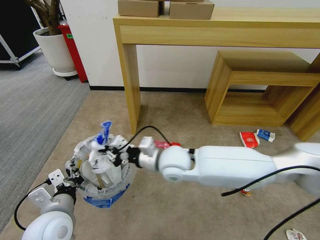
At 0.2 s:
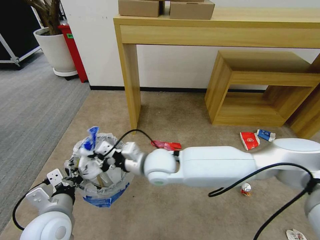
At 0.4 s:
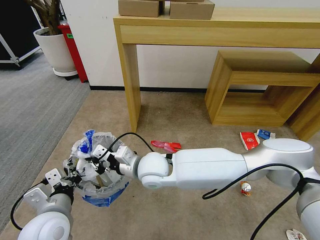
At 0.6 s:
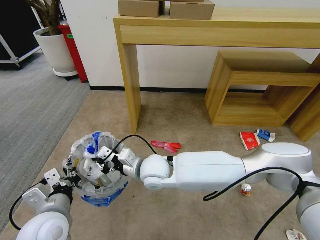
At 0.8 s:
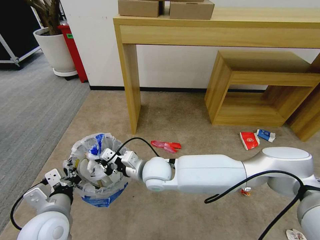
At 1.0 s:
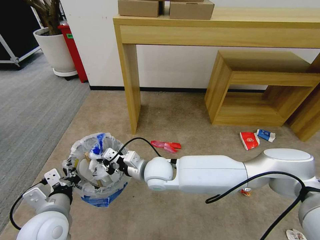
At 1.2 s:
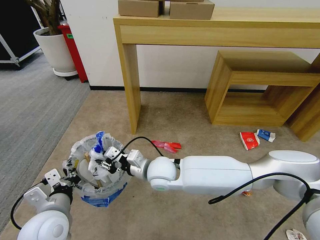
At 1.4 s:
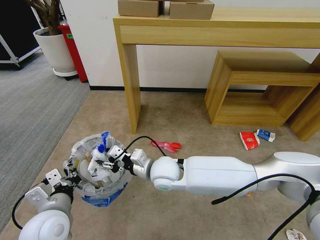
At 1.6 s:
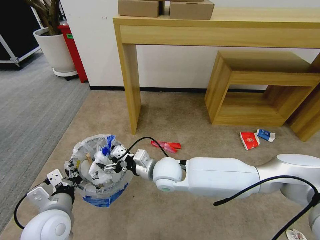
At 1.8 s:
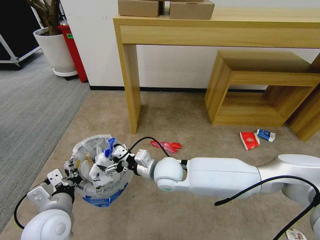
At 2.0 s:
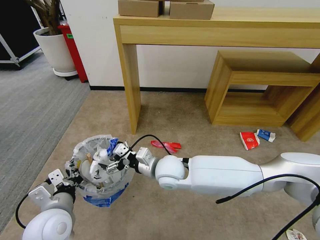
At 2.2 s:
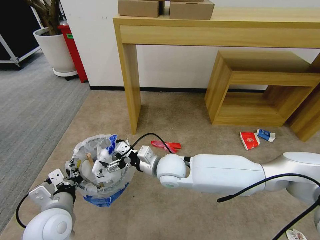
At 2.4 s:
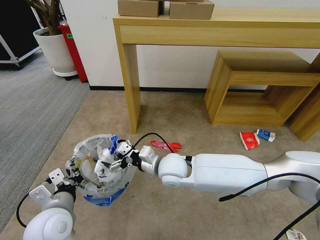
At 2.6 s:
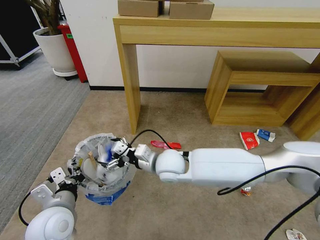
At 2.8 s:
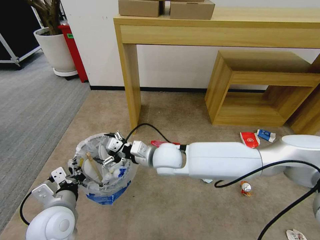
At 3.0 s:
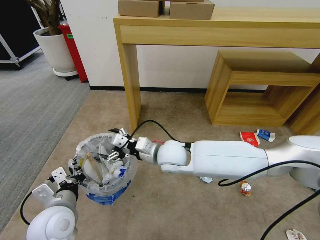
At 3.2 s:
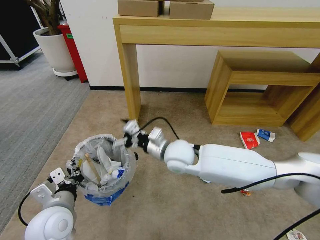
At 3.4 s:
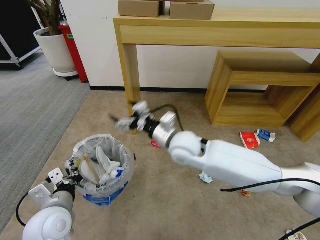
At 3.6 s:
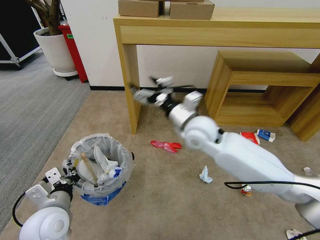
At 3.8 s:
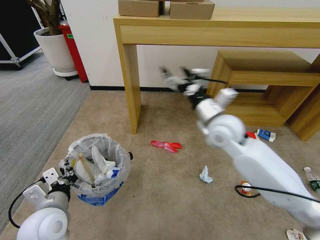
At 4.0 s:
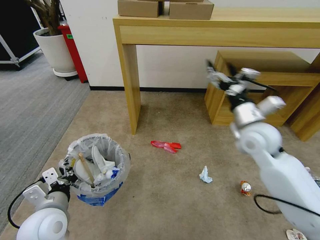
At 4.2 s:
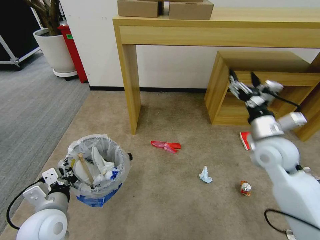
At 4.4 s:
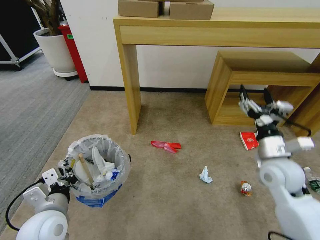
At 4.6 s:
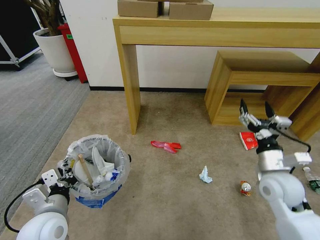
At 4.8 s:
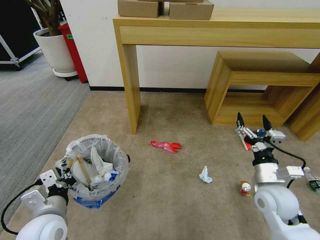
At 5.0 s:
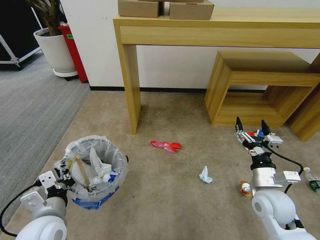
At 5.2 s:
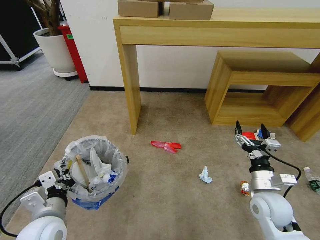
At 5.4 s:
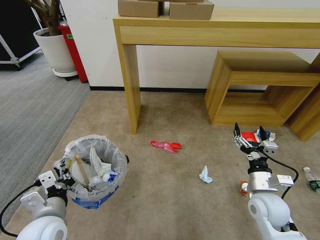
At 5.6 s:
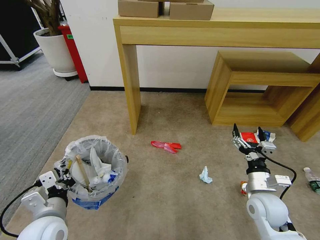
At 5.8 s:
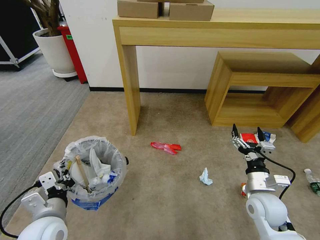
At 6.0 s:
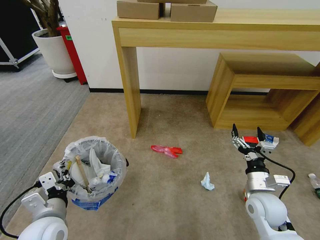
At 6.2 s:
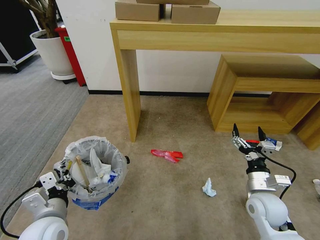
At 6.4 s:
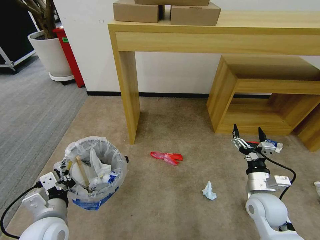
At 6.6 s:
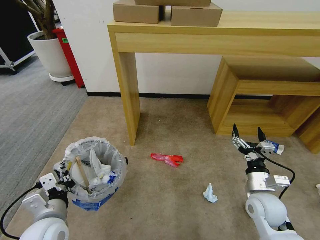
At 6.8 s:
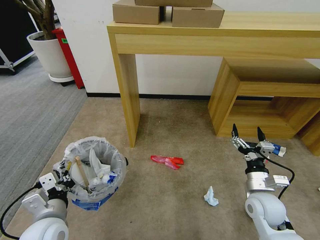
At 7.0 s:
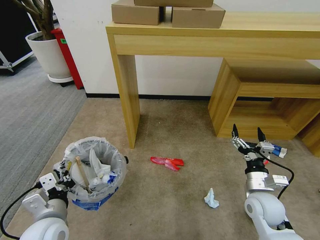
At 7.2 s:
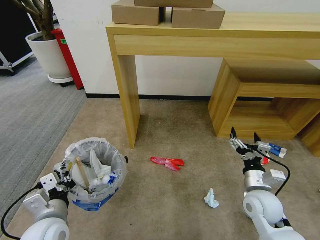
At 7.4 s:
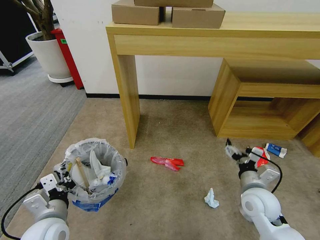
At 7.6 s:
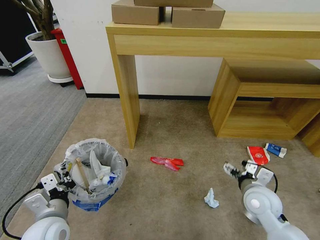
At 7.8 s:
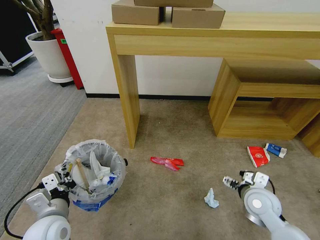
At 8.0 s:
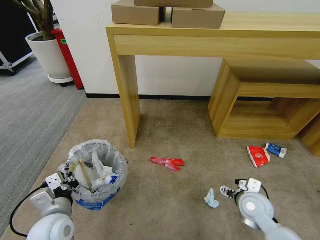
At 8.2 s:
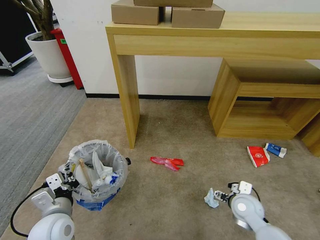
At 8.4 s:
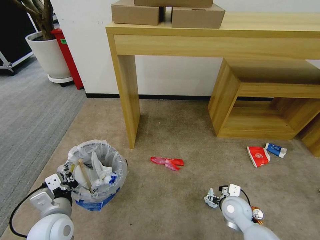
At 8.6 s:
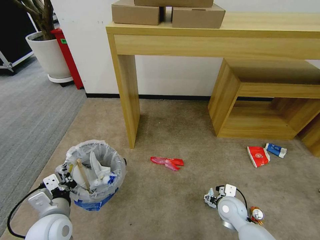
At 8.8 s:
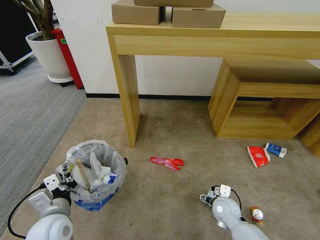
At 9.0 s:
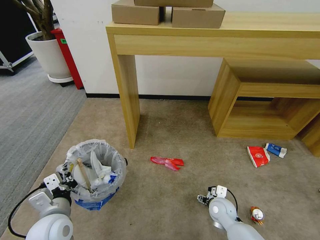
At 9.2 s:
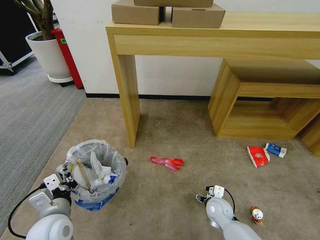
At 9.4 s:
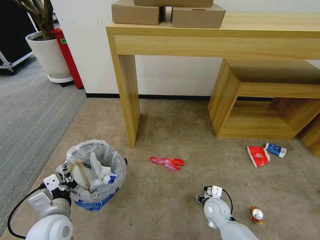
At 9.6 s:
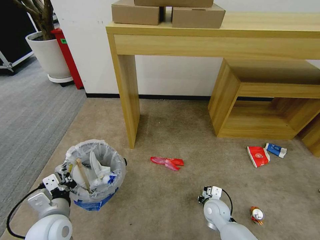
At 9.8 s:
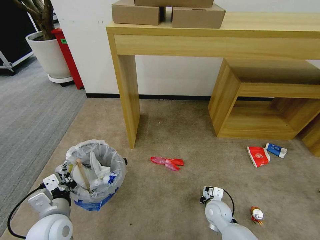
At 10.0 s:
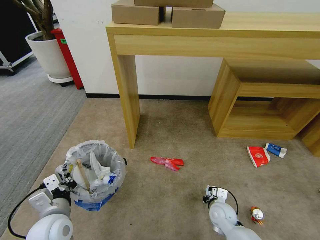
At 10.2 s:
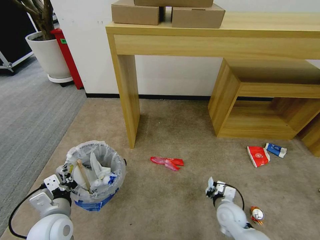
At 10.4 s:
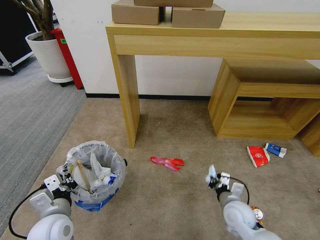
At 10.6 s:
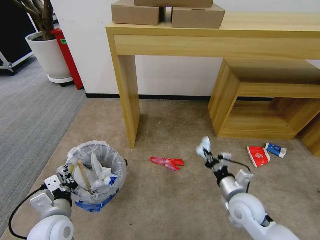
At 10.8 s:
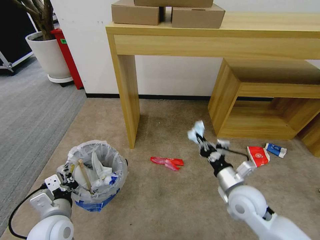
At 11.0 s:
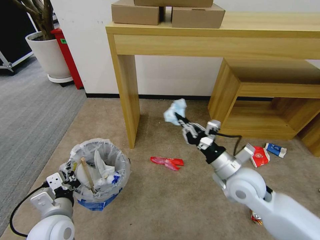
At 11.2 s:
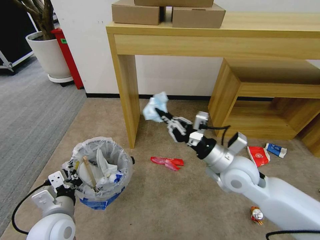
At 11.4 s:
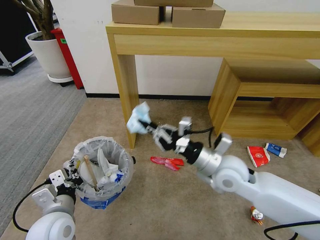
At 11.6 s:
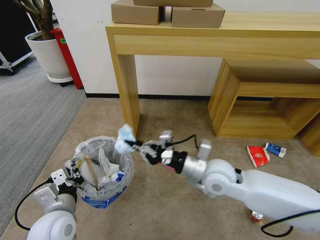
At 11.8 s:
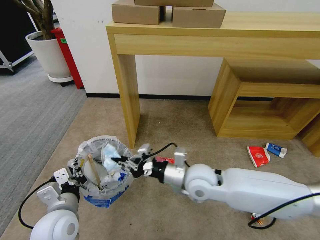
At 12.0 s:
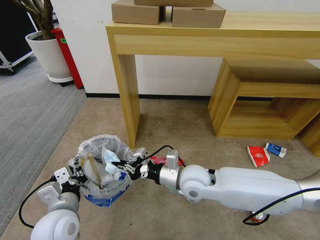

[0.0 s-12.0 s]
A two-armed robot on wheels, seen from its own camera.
Task of the whole recording: Pick up the trash bin and place the garbage on the floor into it.
0.0 to 1.6 s: The right gripper shifts some 5 cm downward, and opens up.
1.6 to 3.0 s: The right gripper shifts by approximately 5 cm.
3.0 to 4.4 s: The right gripper heads to the right, covering about 30 cm.
4.4 to 6.0 s: The right gripper goes roughly 15 cm downward and backward.
7.6 to 9.0 s: The right gripper is displaced downward and to the left by about 15 cm.
9.0 to 10.4 s: The right gripper changes place by roughly 5 cm, and closes its fingers.
10.4 to 12.0 s: The right gripper goes roughly 25 cm to the left and upward.

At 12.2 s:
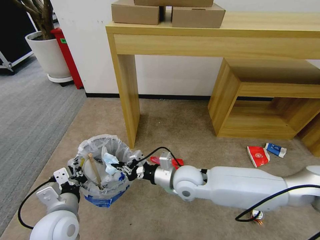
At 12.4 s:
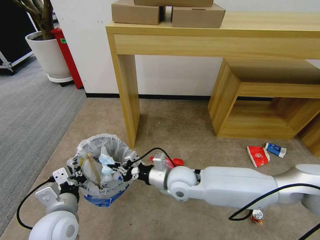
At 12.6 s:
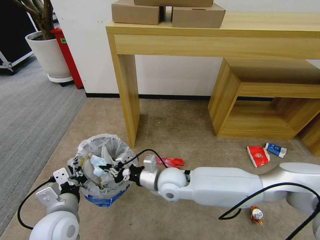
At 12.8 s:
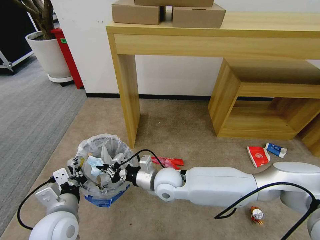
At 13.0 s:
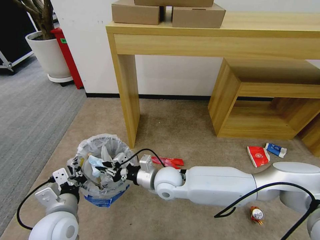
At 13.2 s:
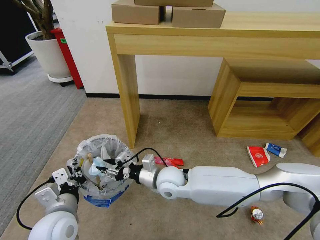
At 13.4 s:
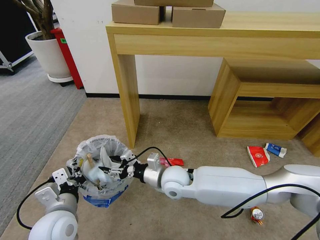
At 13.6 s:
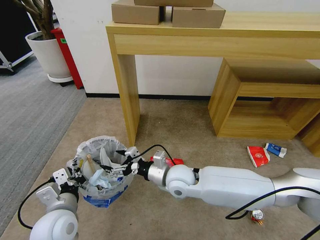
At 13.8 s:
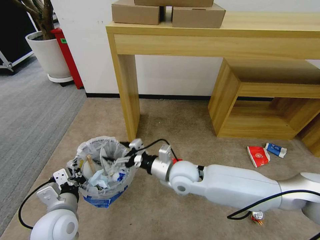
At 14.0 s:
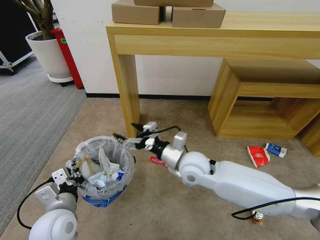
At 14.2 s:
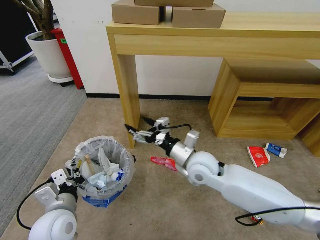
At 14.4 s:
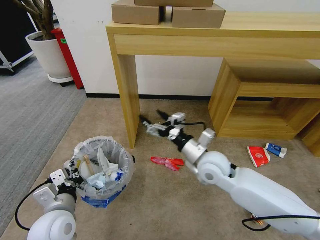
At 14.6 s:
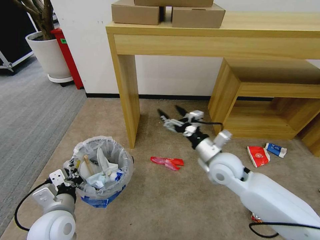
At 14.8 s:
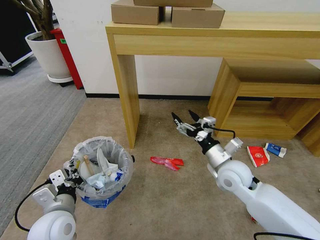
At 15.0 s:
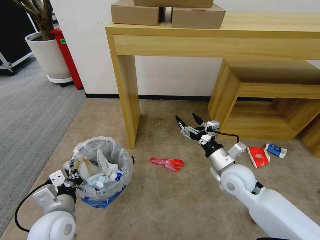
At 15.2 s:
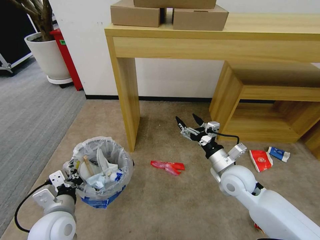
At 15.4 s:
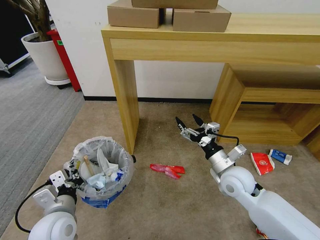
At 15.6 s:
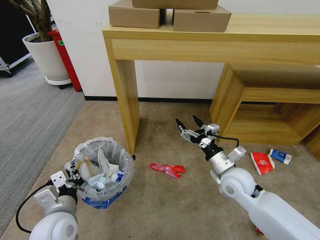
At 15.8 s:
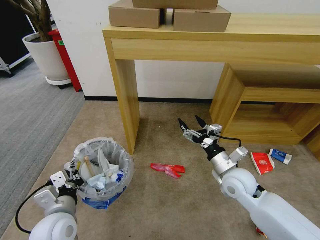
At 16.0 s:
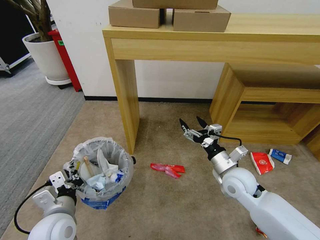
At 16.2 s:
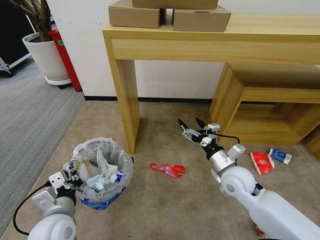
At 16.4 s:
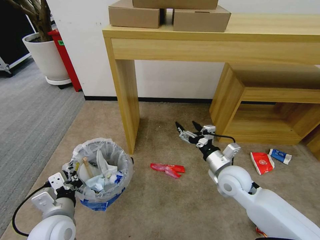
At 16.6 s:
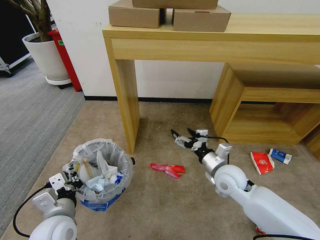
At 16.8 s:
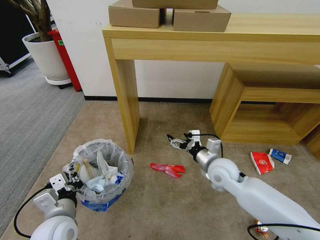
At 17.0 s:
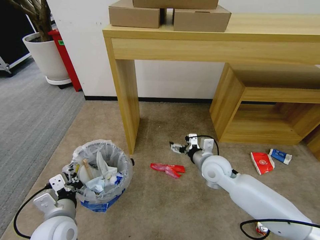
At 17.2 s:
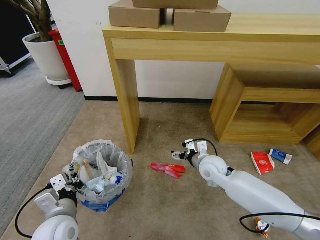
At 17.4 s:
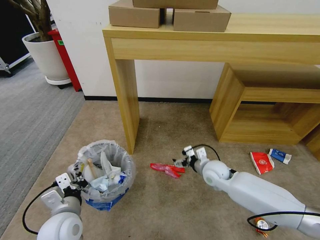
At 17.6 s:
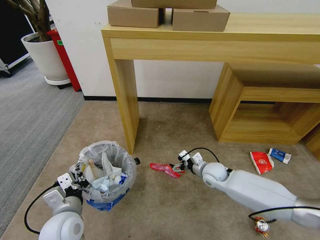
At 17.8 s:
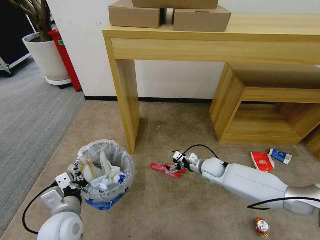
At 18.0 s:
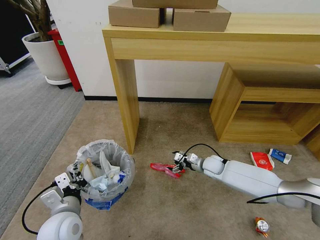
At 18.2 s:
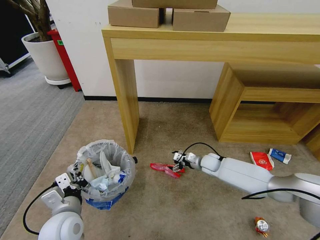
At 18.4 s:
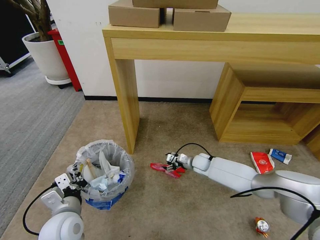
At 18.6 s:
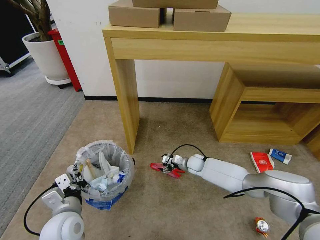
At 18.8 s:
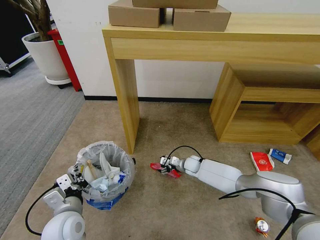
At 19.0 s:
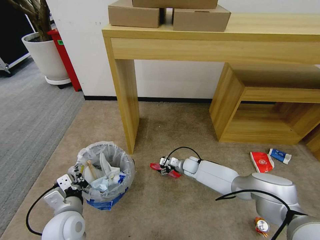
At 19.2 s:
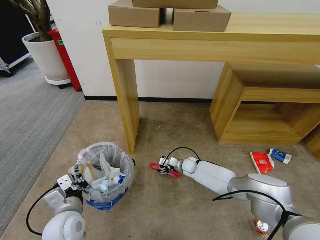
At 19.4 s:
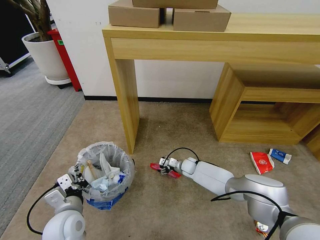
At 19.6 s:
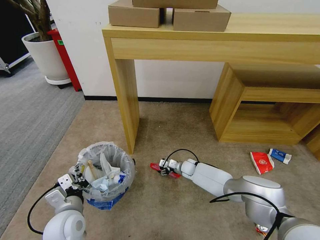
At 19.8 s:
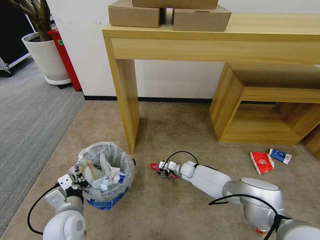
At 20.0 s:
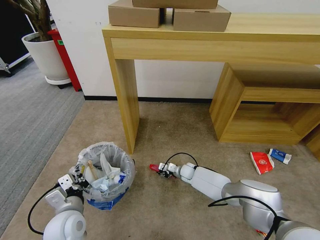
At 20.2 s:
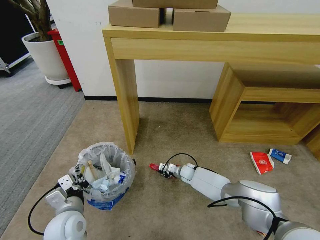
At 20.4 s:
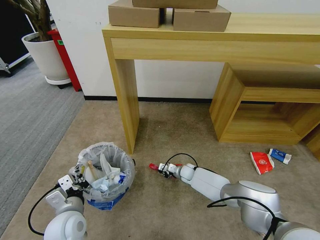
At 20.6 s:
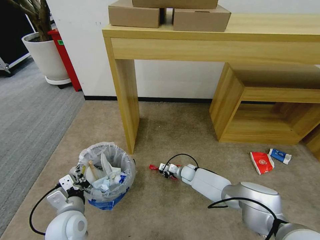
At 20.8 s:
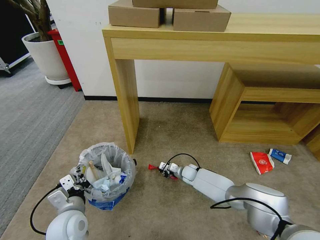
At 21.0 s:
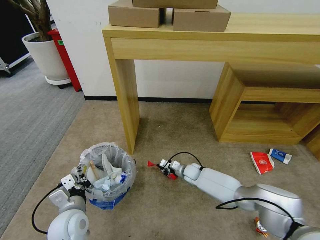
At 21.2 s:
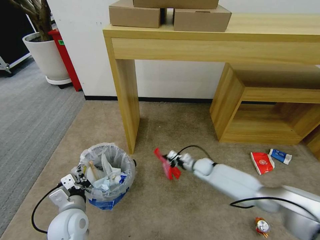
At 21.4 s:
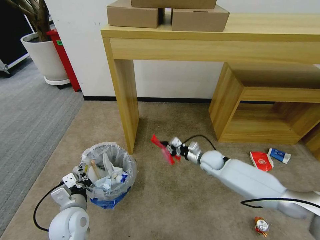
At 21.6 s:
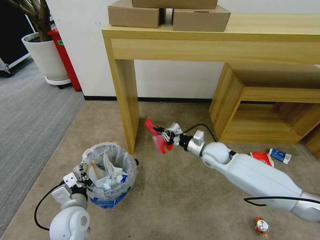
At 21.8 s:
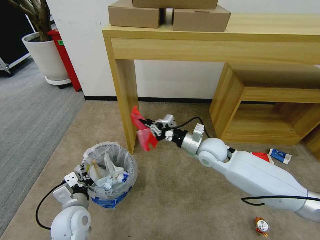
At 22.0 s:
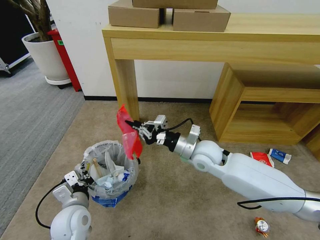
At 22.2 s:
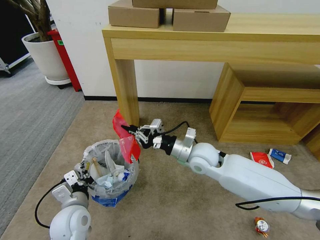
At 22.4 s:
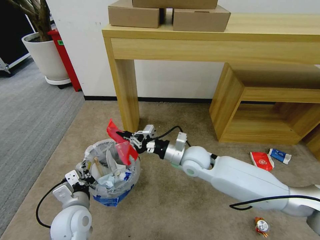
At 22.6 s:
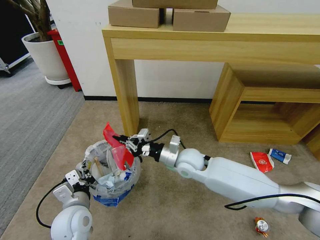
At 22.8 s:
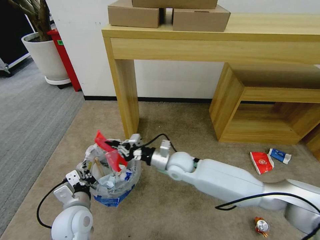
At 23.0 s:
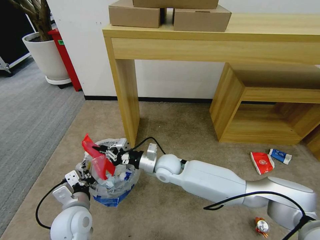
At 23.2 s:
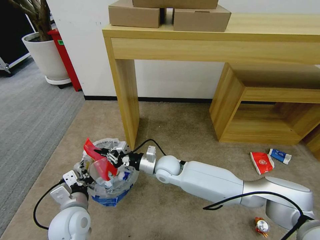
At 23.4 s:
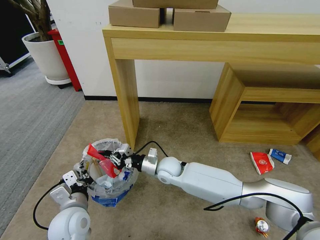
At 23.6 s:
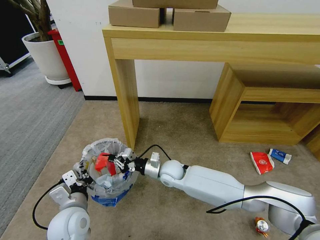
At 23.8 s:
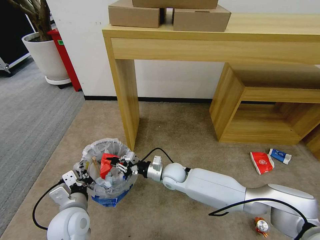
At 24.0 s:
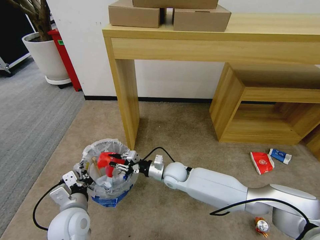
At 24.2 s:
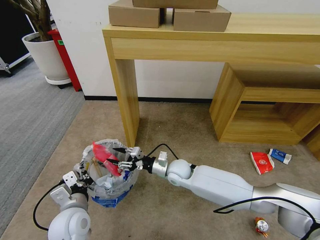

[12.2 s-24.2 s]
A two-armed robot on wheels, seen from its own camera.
Task of the whole recording: Pick up the trash bin and place the garbage on the floor into it.
12.2 to 13.8 s: The right gripper opens.
13.8 to 15.2 s: The right gripper travels to the right by about 15 cm.
15.2 to 16.6 s: The grippers stay close to where they were, moving slightly.
16.6 to 18.2 s: The right gripper shifts approximately 20 cm forward and downward.
18.2 to 19.8 s: The right gripper travels downward and to the left by roughly 10 cm.
19.8 to 21.2 s: The right gripper shifts approximately 10 cm upward and to the right, and closes up.
21.2 to 22.6 s: The right gripper is displaced upward, to the left and backward by about 25 cm.
22.6 to 24.2 s: The right gripper is displaced downward by some 10 cm, and opens.
